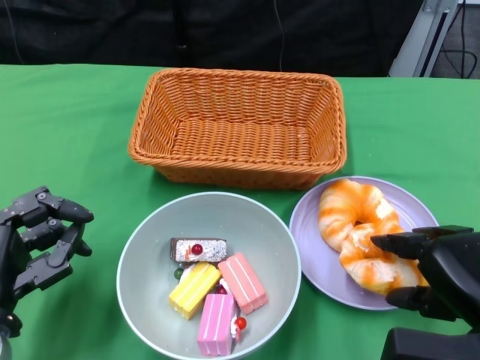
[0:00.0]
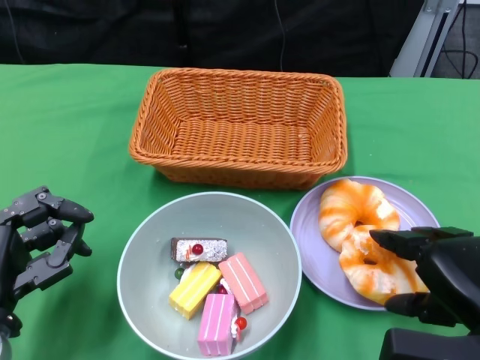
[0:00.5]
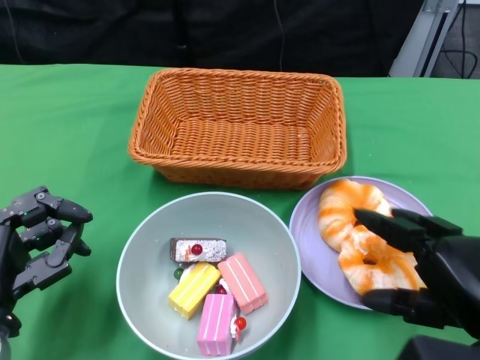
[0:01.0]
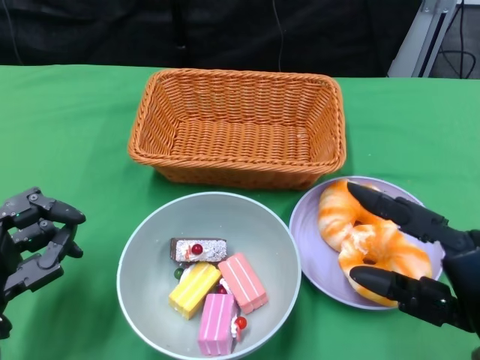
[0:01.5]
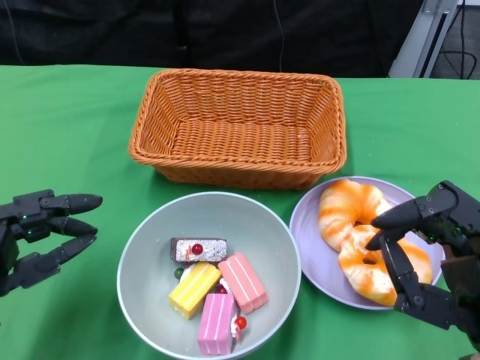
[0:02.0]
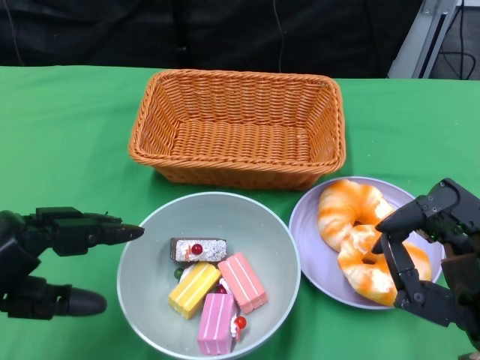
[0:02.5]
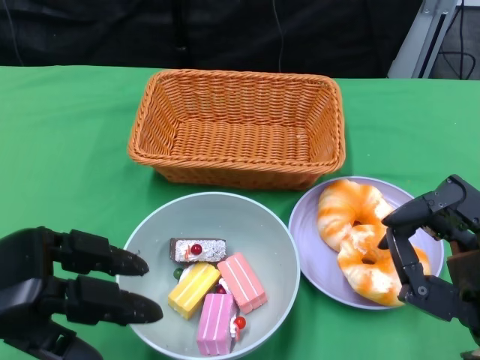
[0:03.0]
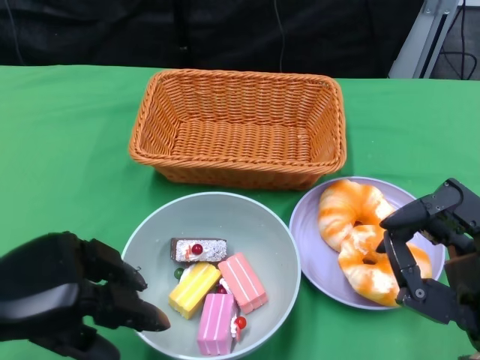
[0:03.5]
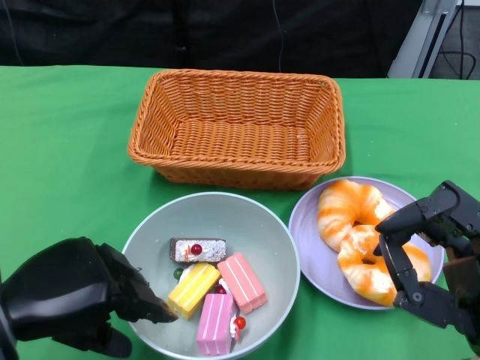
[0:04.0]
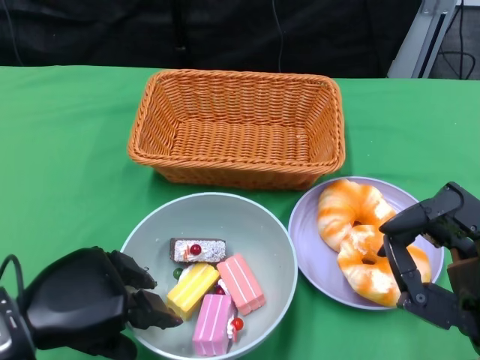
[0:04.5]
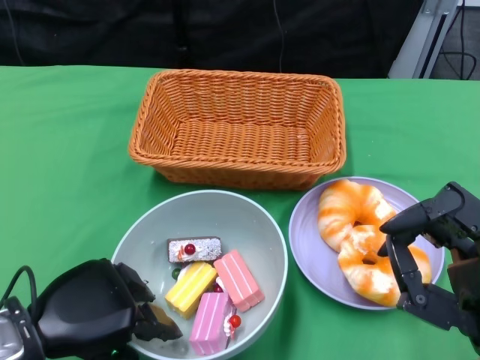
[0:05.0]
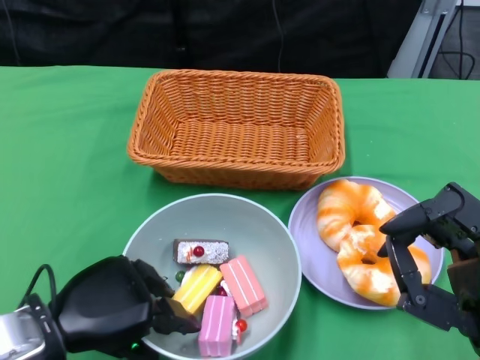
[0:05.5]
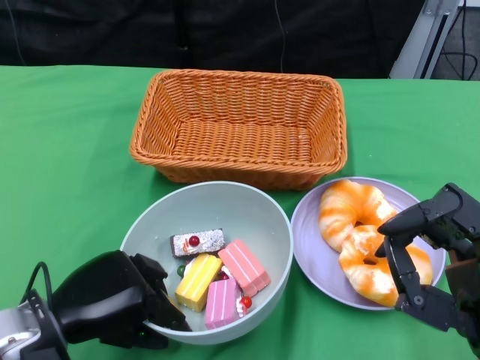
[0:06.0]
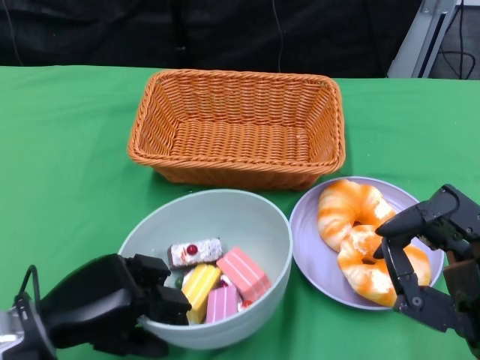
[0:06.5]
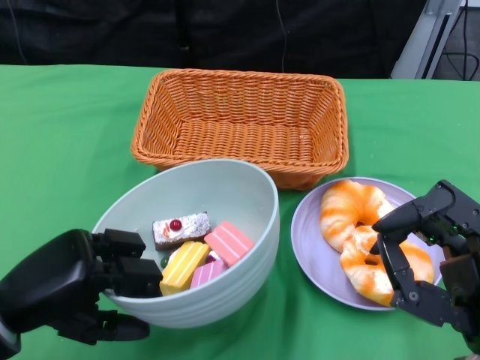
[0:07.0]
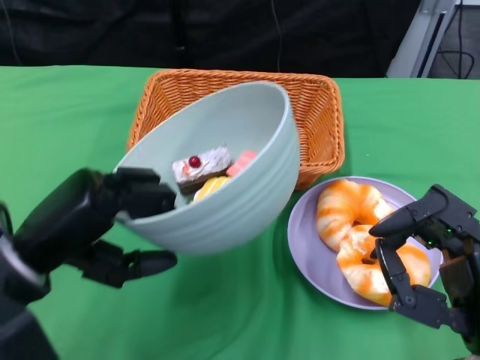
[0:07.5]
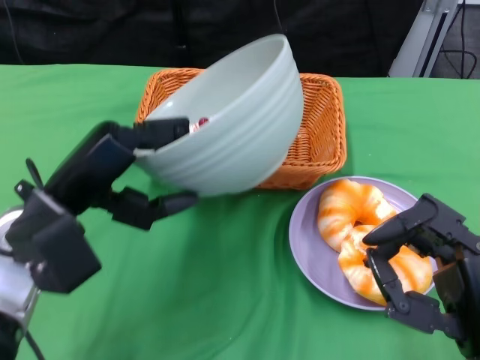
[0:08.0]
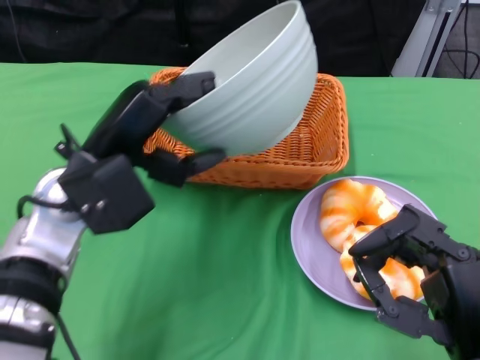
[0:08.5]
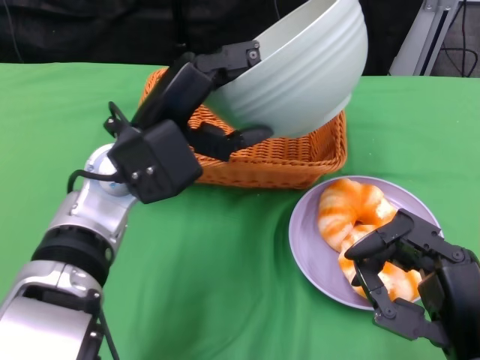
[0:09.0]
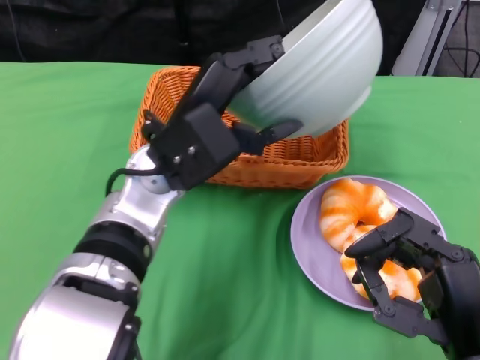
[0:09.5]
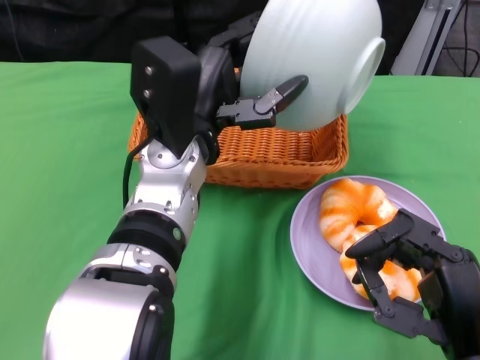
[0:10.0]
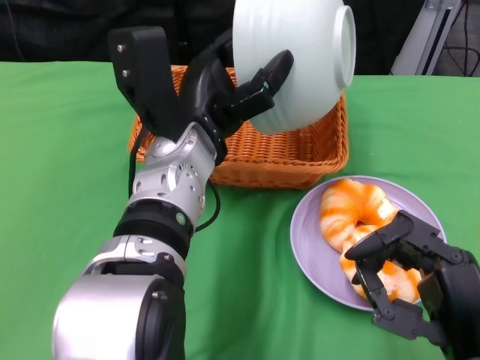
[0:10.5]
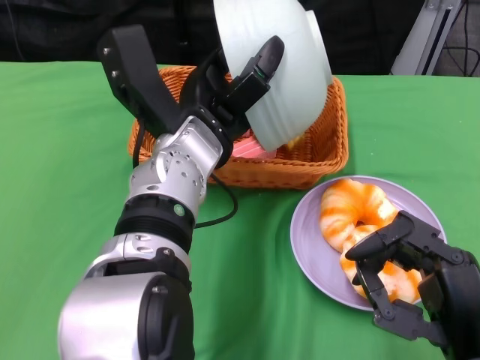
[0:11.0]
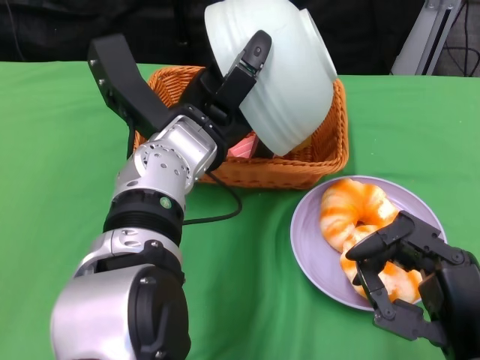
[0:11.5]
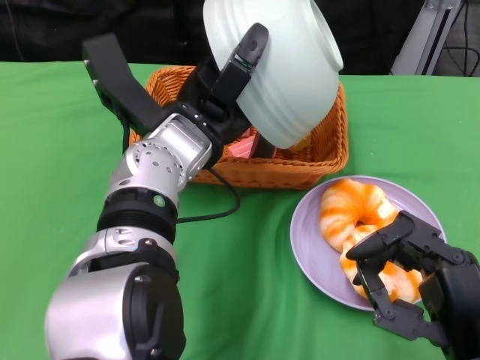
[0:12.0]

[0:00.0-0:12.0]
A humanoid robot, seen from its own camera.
Step, 0:01.5 to 0:06.0: Grasp the bowl with the left gripper.
0:00.0 to 0:02.0: The right hand changes place by about 5 cm.
0:02.0 to 0:04.0: The left hand shifts by approximately 5 cm.
0:04.0 to 0:06.0: The left hand is displaced downward by about 5 cm.
0:06.0 to 0:08.0: The left hand is displaced upward and forward by roughly 10 cm.
0:08.0 to 0:10.0: The left hand travels to the right and forward by roughly 15 cm.

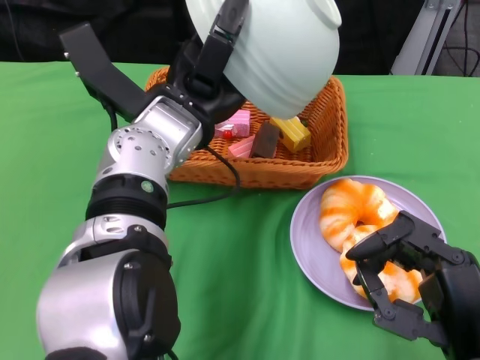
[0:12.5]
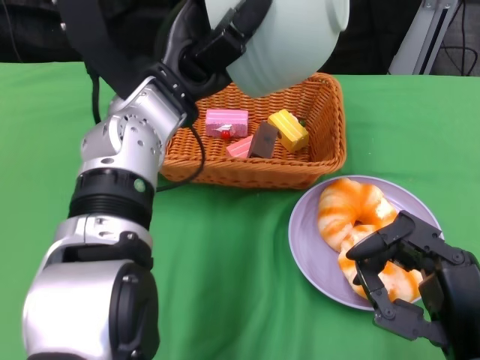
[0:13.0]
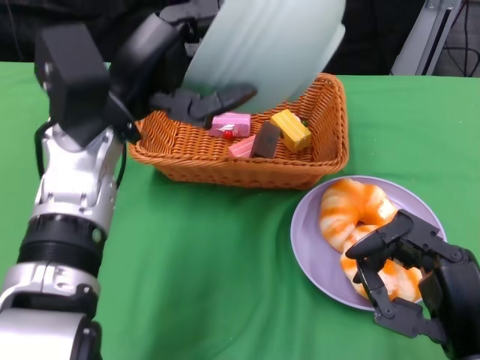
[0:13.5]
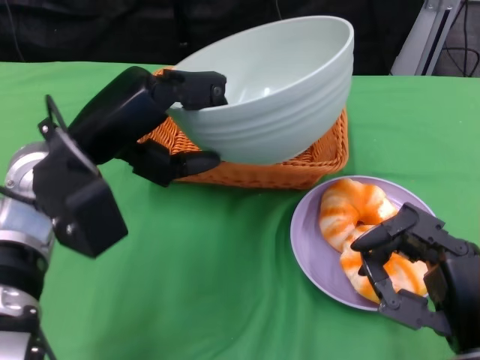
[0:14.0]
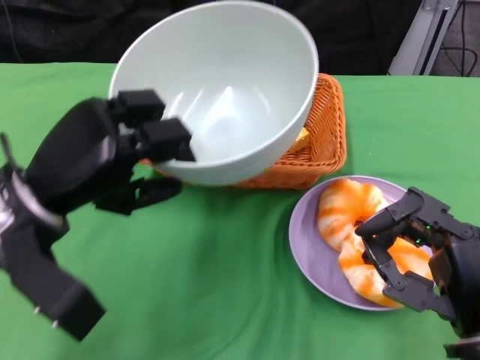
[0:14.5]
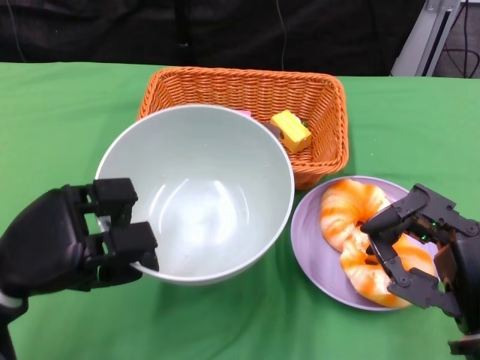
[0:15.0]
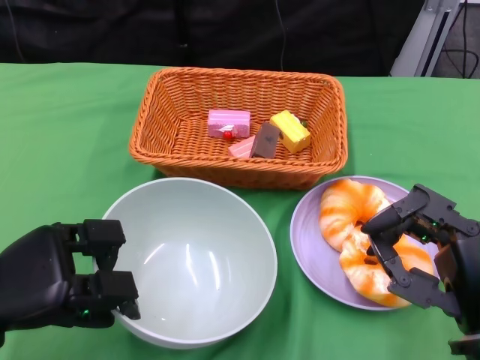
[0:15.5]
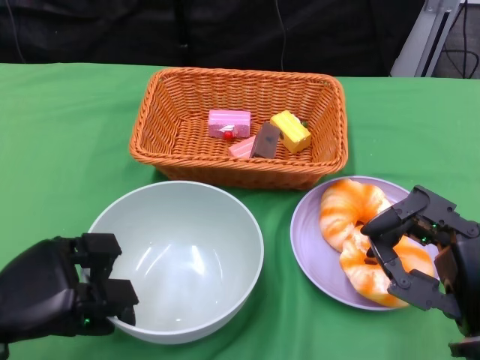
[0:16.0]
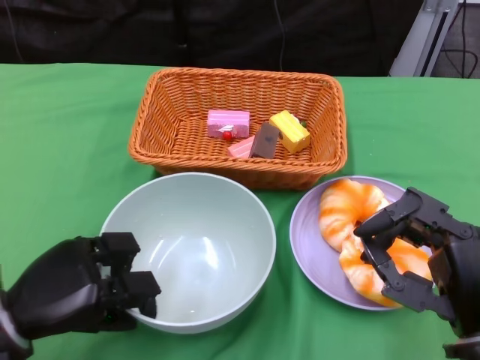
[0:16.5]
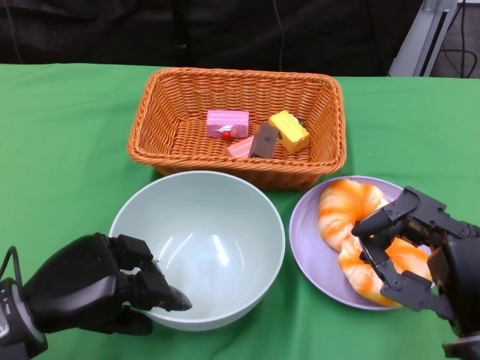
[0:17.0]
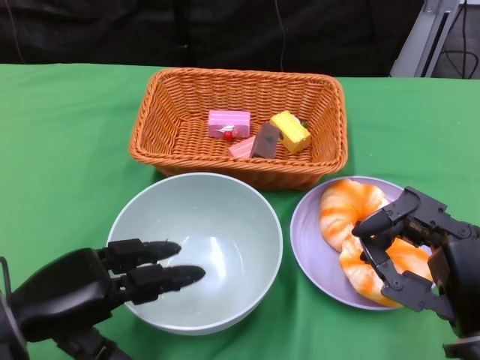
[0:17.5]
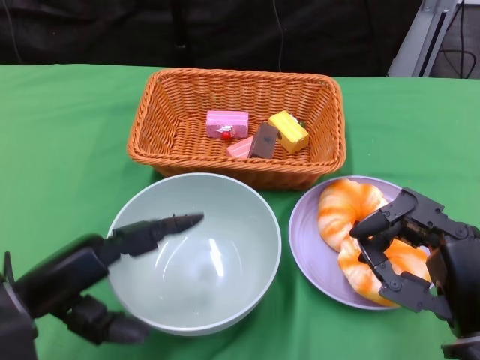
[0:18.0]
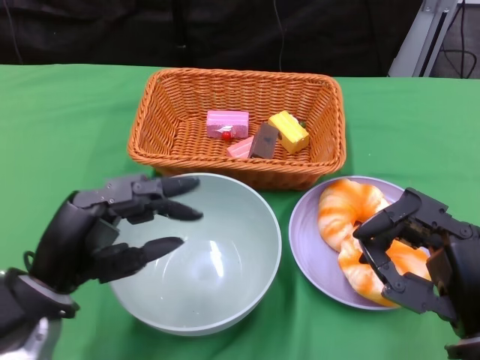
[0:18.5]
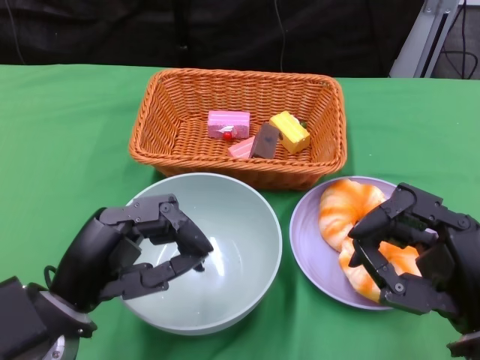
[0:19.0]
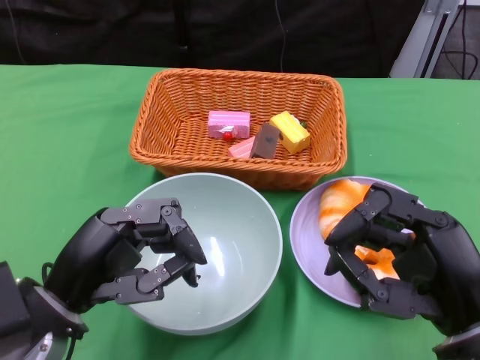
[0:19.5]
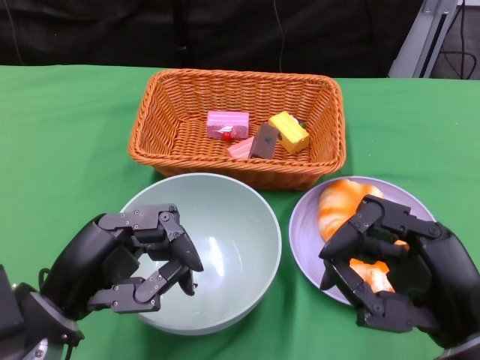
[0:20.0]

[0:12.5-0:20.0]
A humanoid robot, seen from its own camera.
Step, 0:13.5 to 0:17.0: Place the bowl on the table with the left gripper.
0:12.5 to 0:14.5: The left hand shifts roughly 15 cm to the left and backward.
0:14.5 to 0:16.5: The left hand is displaced downward and backward by roughly 10 cm.

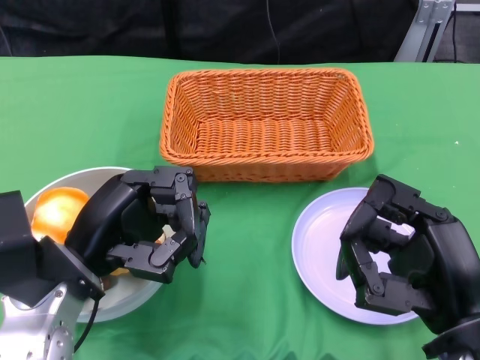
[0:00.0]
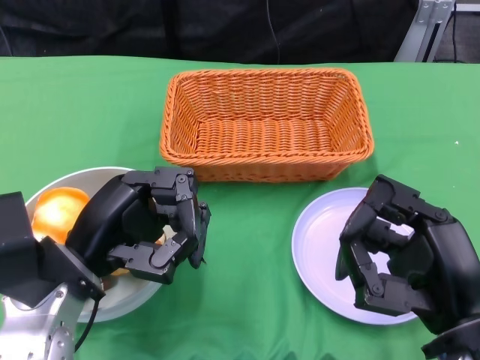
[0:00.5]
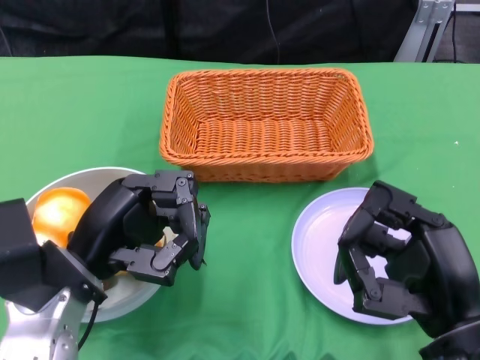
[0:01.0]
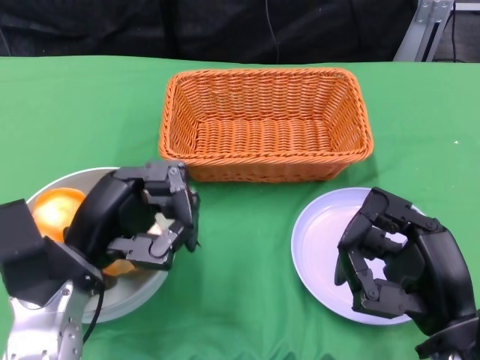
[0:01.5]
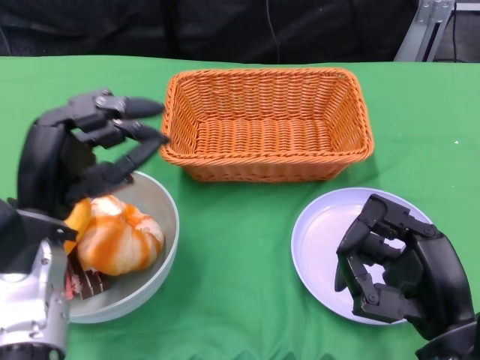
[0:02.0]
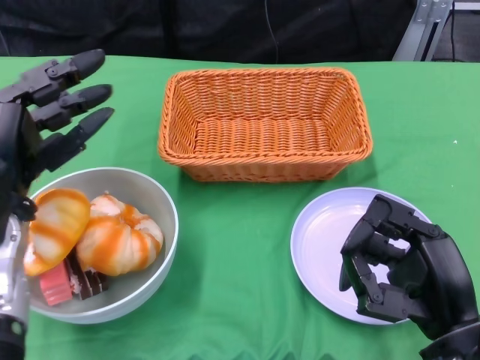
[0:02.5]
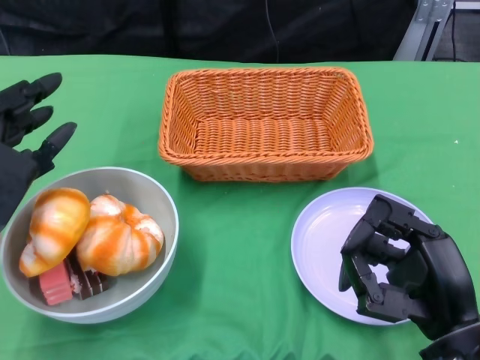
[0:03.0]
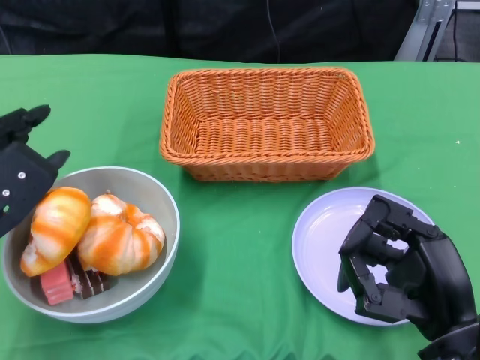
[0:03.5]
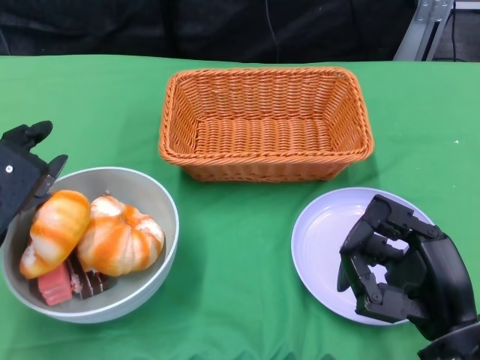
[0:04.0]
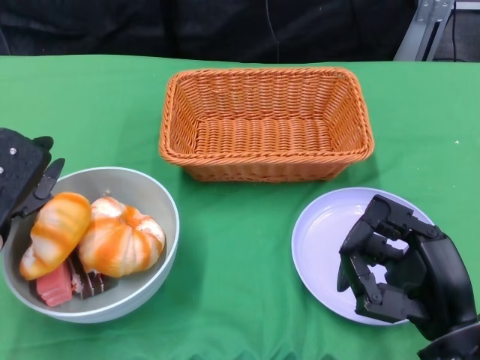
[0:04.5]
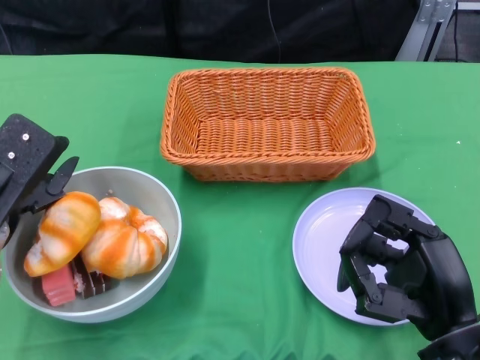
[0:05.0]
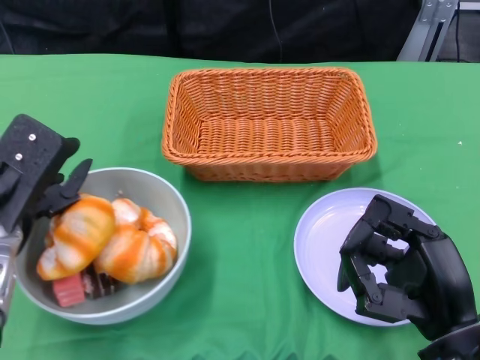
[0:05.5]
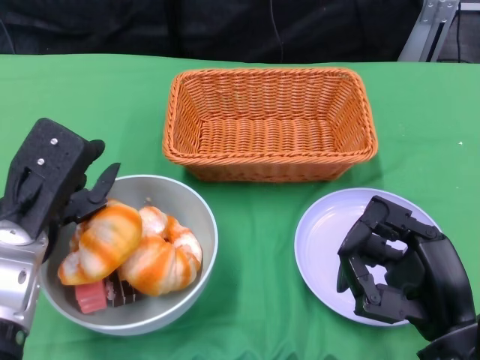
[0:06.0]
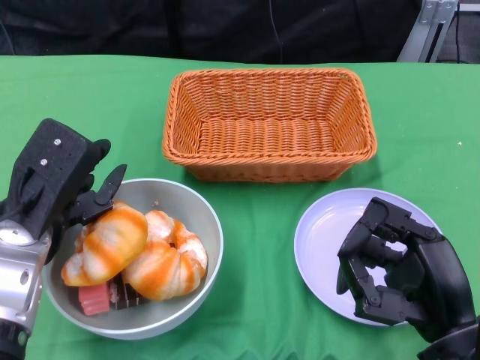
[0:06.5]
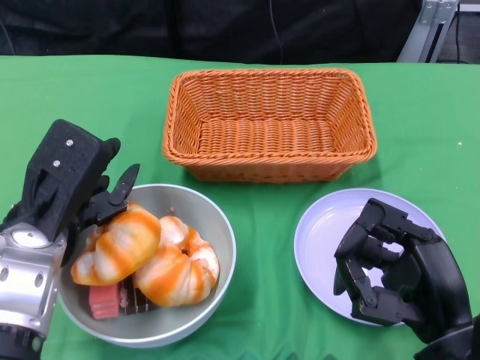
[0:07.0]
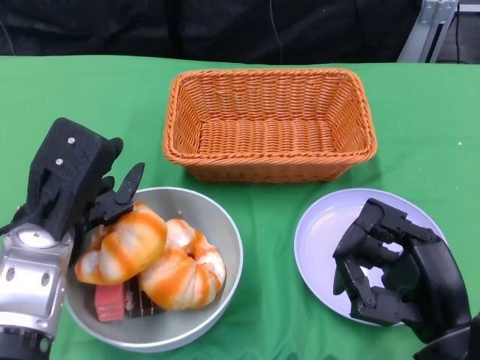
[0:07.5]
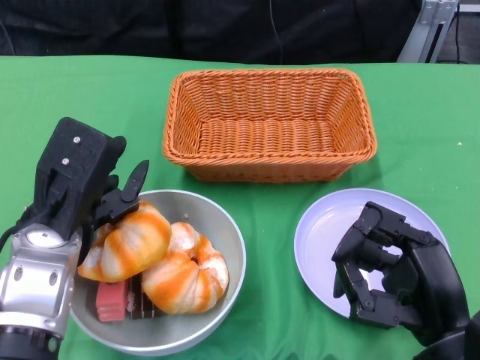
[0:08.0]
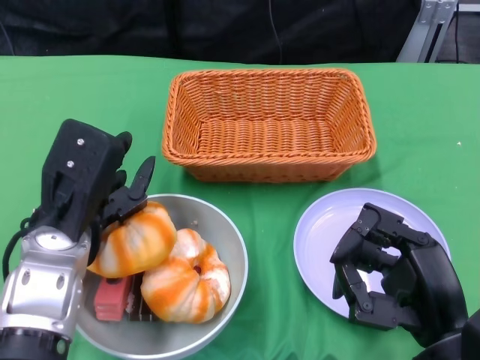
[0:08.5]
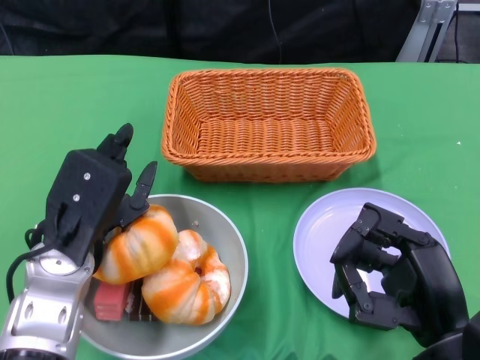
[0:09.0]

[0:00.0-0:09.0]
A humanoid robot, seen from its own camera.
0:02.0 to 0:04.5: The left hand heads to the left, covering approximately 5 cm.
0:04.5 to 0:07.0: The left hand is displaced to the right by approximately 5 cm.
